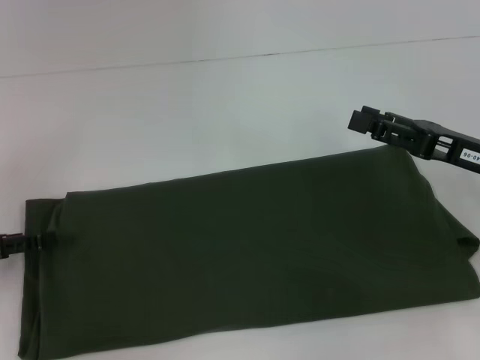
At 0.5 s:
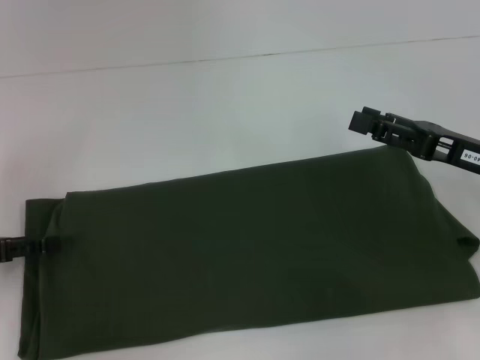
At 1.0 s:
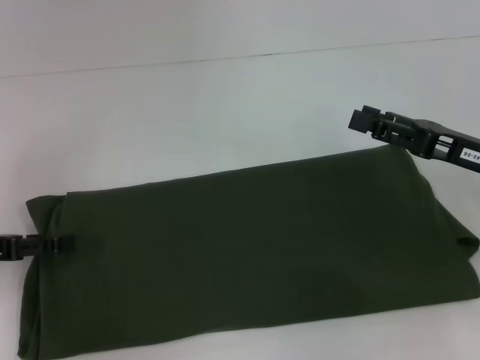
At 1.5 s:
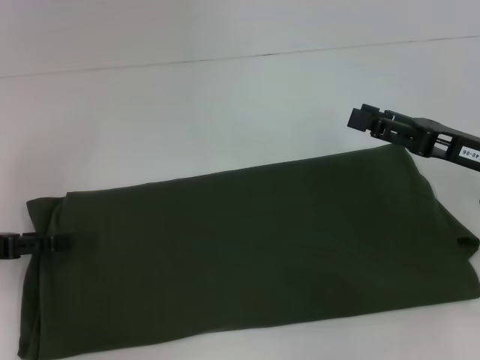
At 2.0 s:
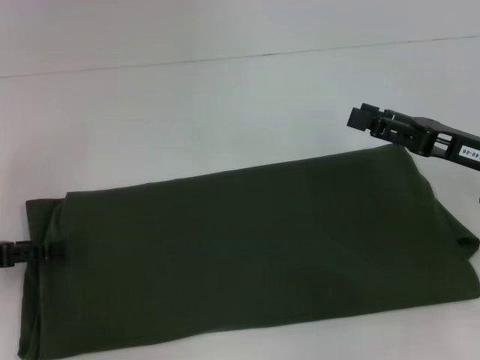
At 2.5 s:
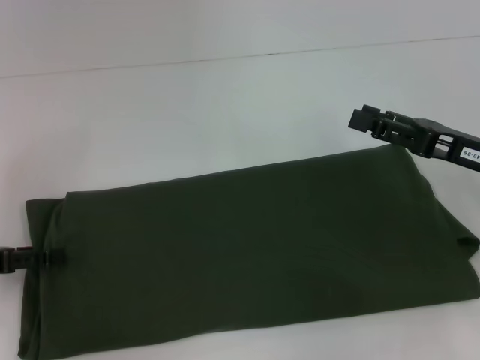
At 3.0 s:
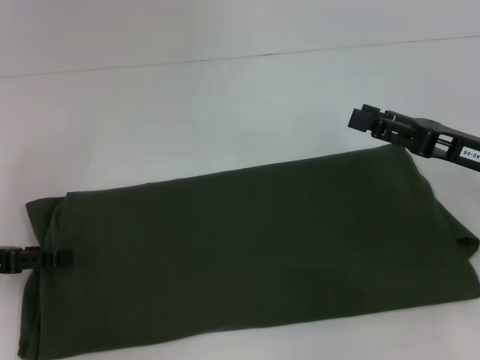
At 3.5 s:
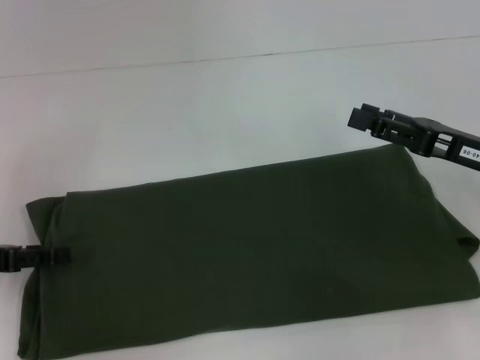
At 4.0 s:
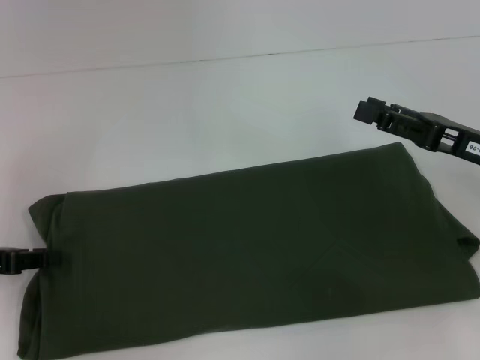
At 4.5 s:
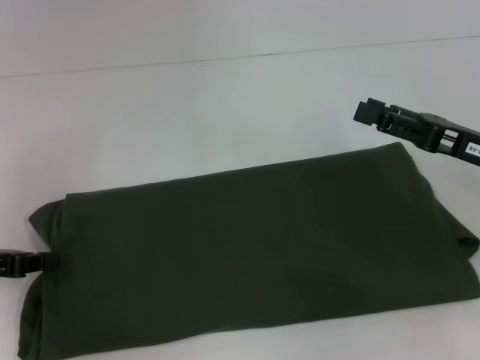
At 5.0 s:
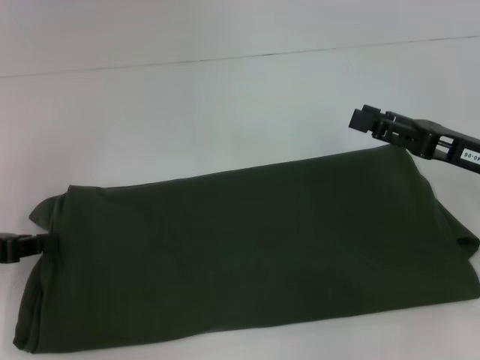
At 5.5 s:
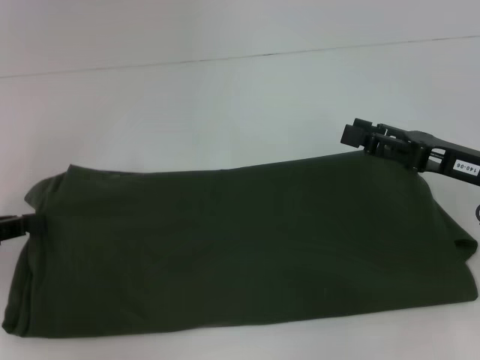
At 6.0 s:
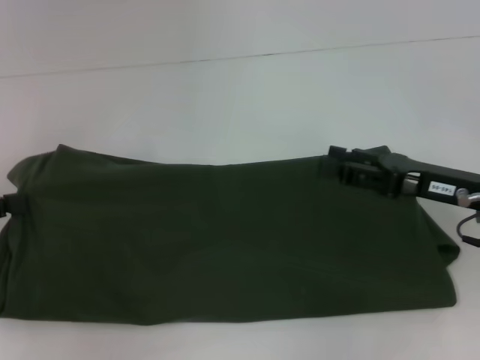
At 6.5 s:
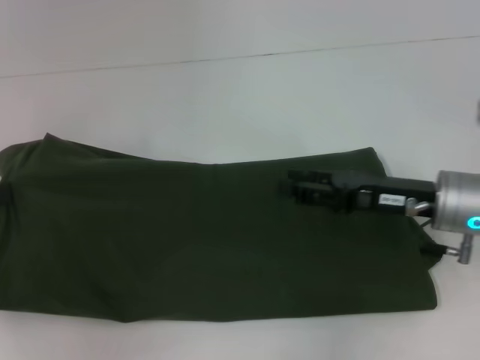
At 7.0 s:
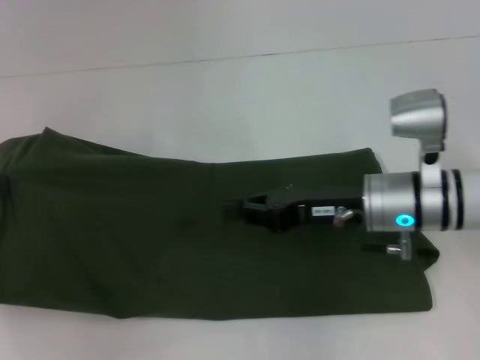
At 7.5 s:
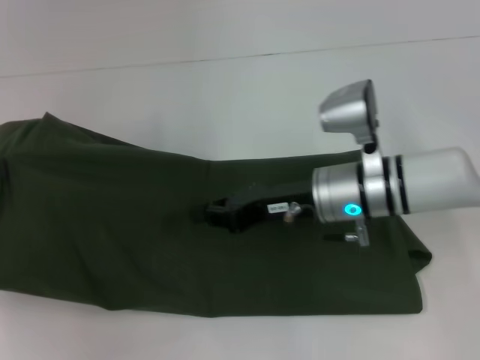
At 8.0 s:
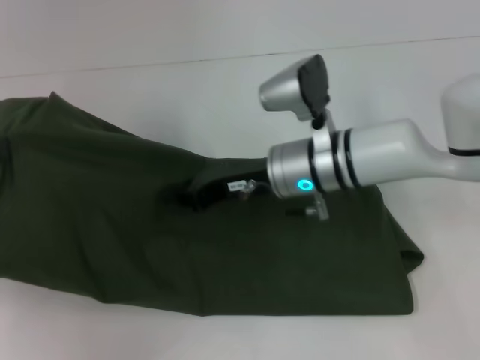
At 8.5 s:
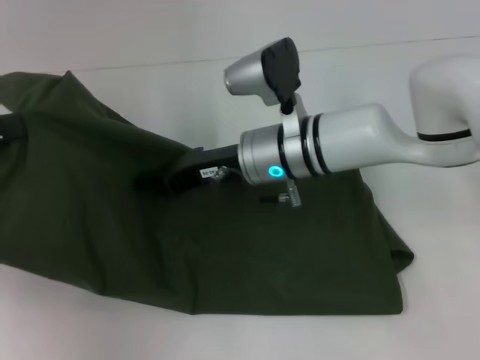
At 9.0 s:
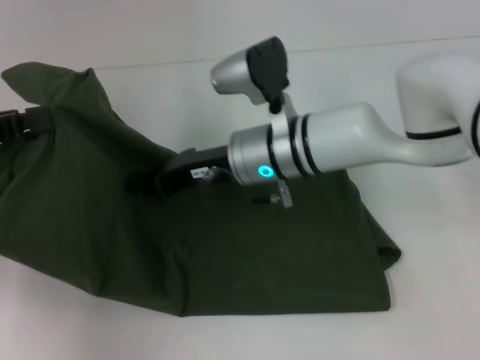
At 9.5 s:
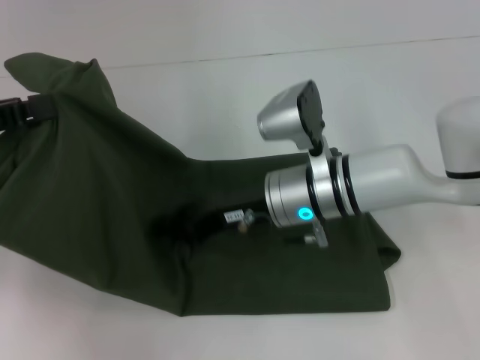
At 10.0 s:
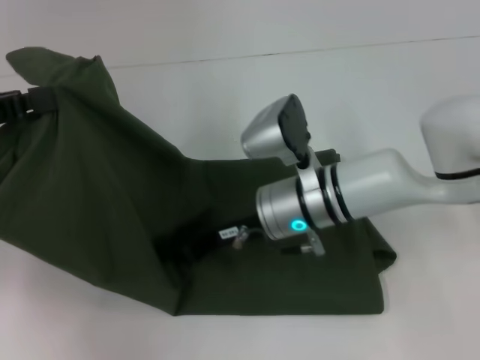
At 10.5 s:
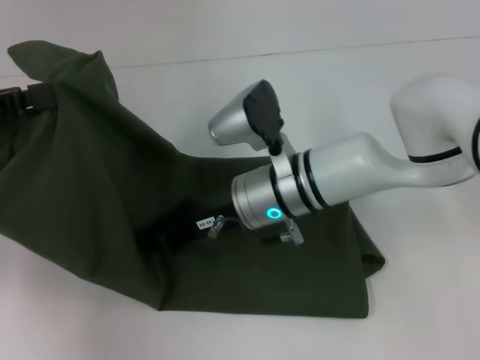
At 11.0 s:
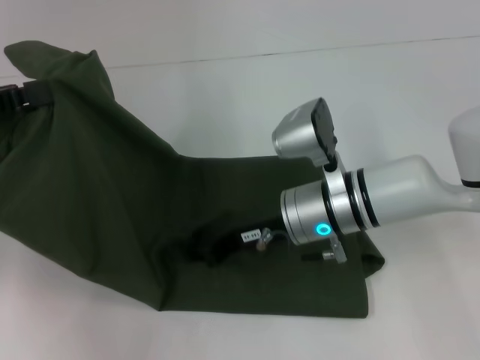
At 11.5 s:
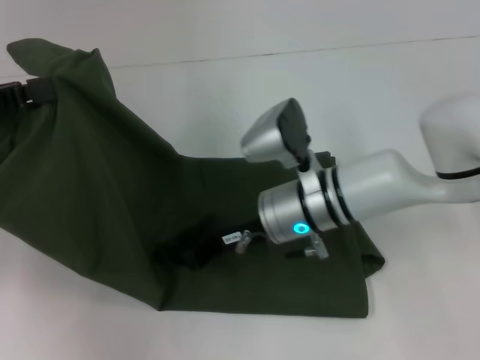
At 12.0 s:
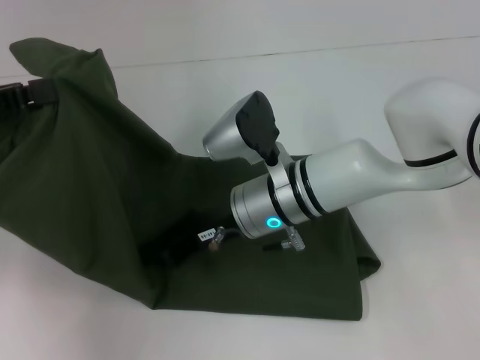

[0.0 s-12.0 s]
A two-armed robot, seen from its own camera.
0.0 to 2.0 s: The grippers make only small movements.
2.0 to 4.0 s: The left gripper closes its fingers.
4.0 to 6.0 s: The left gripper is displaced upward by roughly 5 cm, and closes its fingers.
6.0 to 8.0 s: The right gripper heads to the left and forward, covering approximately 20 cm, and closes its fingers.
10.0 to 12.0 s: The grippers make only small movements.

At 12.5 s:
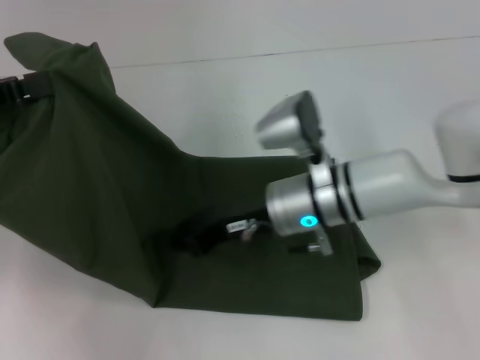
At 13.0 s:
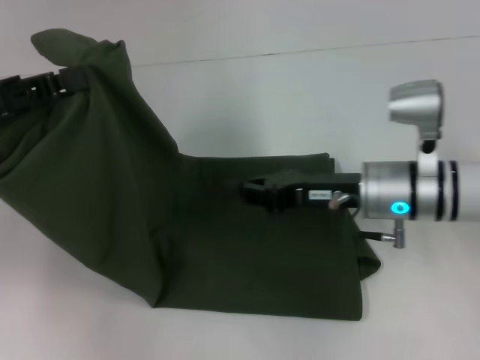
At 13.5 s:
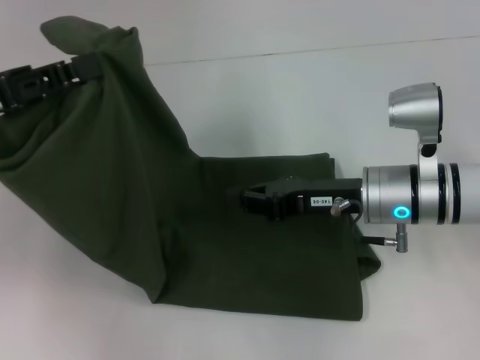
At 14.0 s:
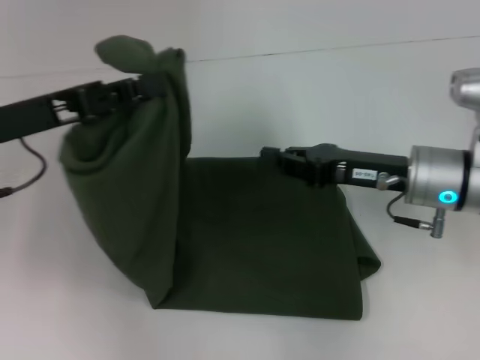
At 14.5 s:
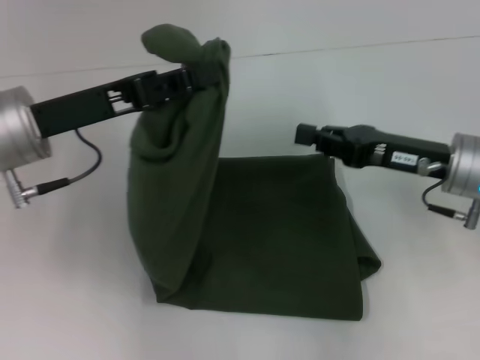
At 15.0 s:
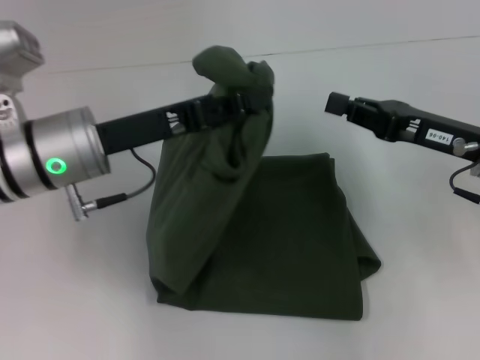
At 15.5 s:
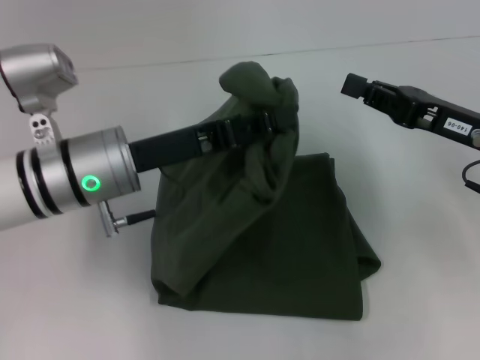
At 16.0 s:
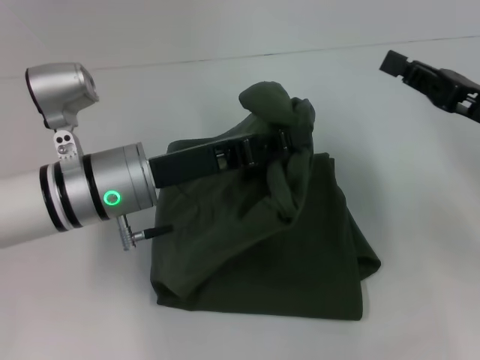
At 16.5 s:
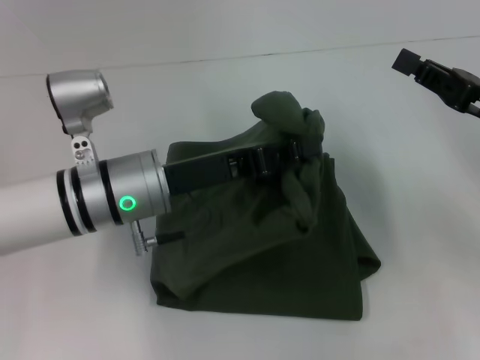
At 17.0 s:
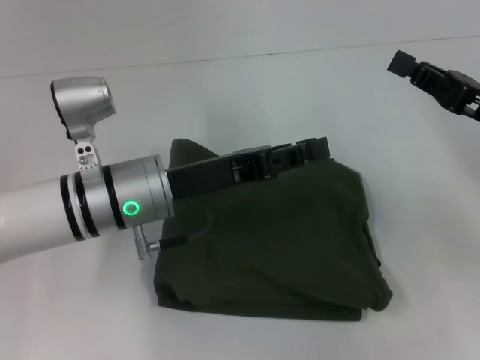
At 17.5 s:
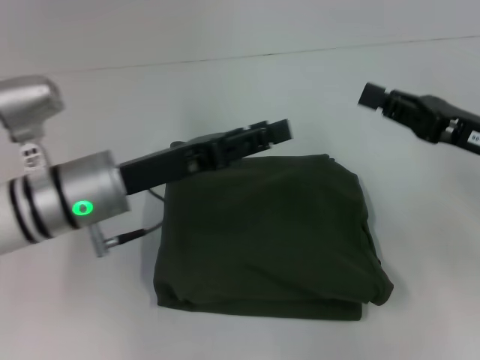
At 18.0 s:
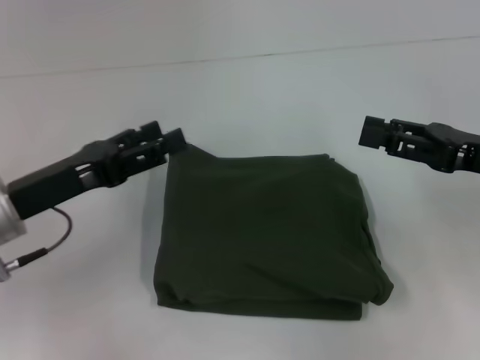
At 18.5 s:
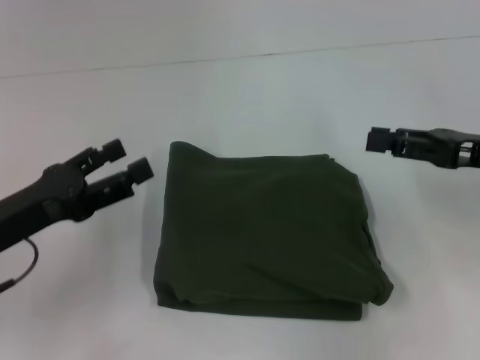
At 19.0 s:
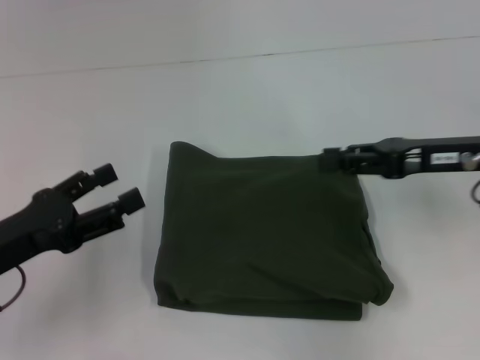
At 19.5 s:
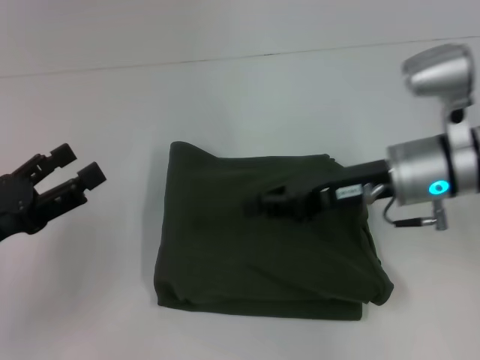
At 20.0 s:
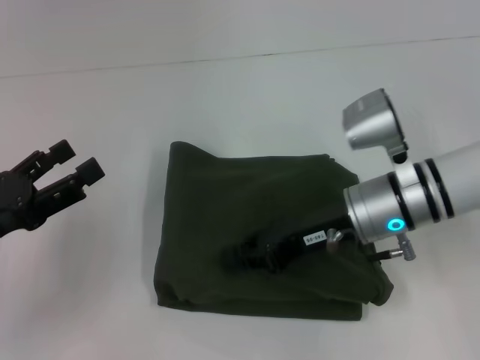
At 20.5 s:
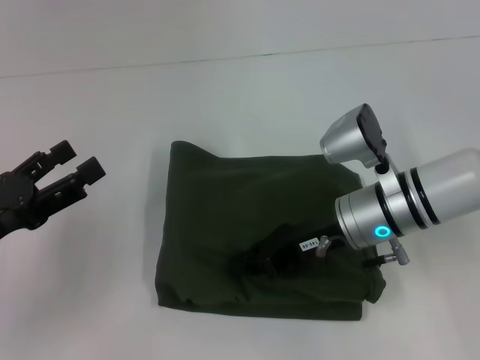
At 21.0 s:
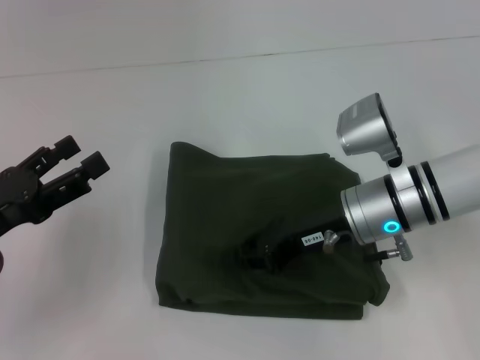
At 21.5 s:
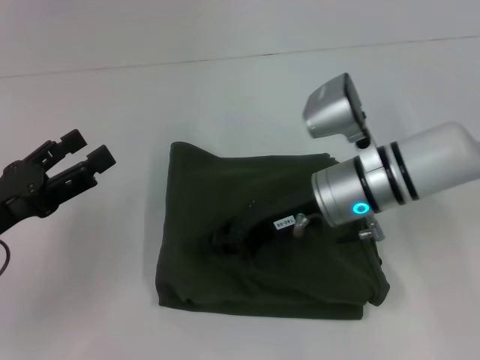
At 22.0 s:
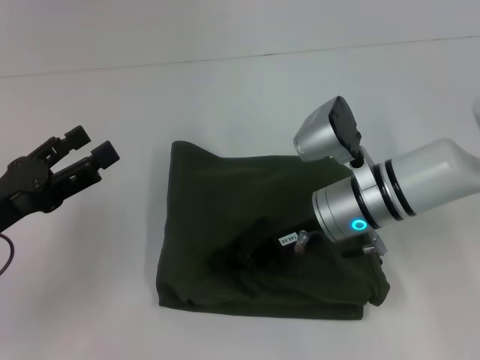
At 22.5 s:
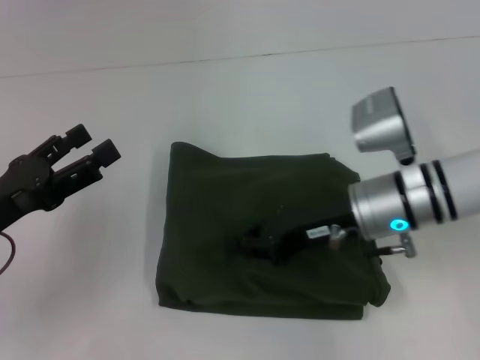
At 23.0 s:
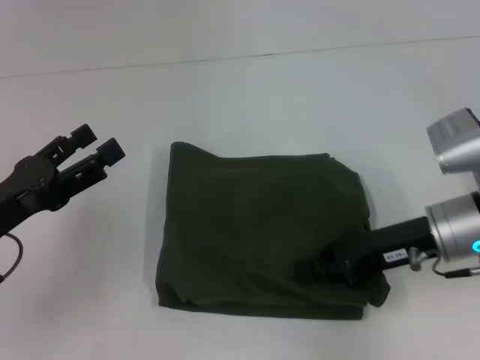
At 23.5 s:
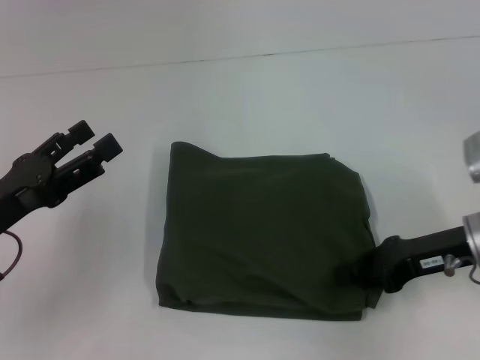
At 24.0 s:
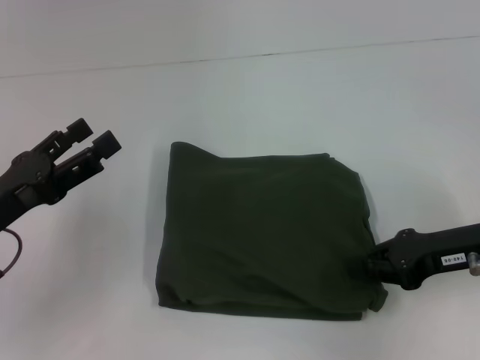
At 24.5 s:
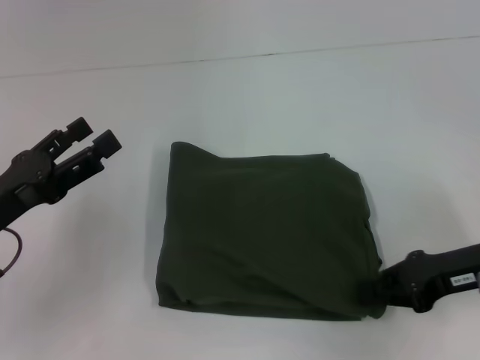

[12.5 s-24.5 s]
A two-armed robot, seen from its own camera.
Step, 12.5 to 16.5 s: Fold the clothes with your left hand.
12.5 to 14.5 s: The two grippers go some 15 cm to the right.
14.5 to 16.5 s: The left gripper goes roughly 10 cm to the right and downward. The right gripper goes roughly 5 cm to the right.
16.5 to 18.5 s: The left gripper travels to the left by some 15 cm, and opens its fingers.
18.5 to 20.5 s: The right gripper heads to the left and downward, covering roughly 15 cm.
20.5 to 22.5 s: The grippers move only a little.
22.5 to 24.5 s: The right gripper goes about 15 cm to the right and backward.

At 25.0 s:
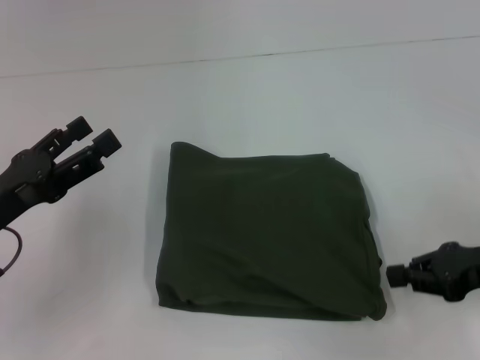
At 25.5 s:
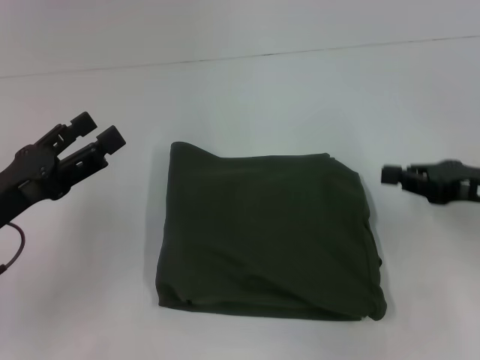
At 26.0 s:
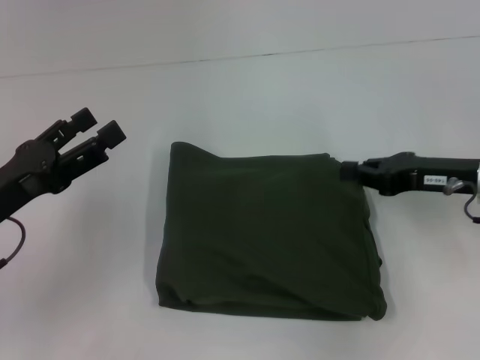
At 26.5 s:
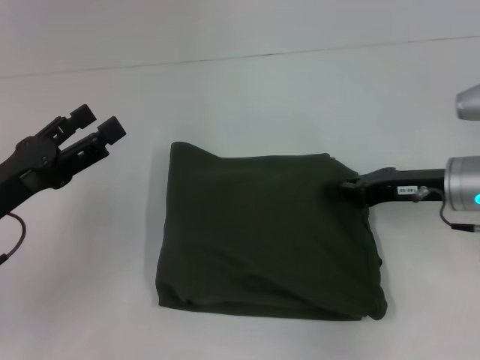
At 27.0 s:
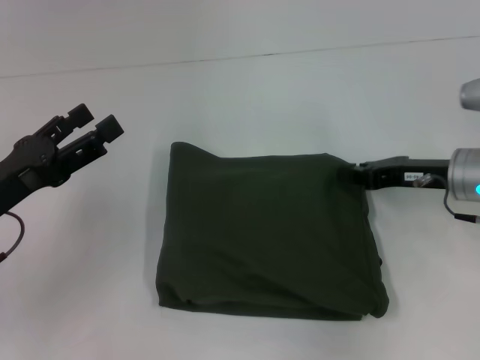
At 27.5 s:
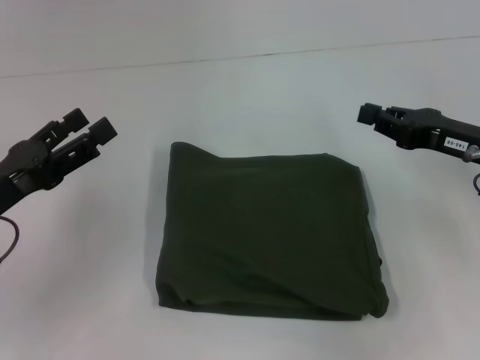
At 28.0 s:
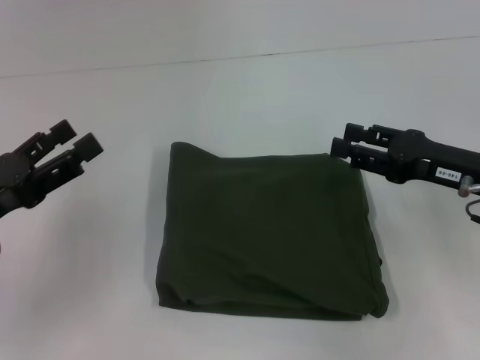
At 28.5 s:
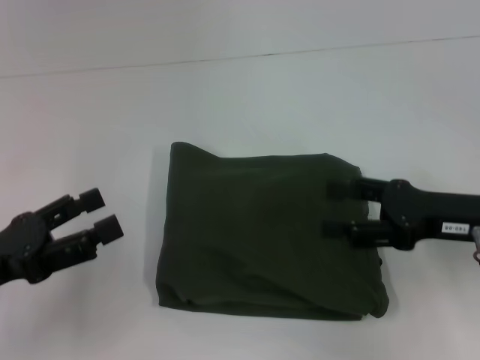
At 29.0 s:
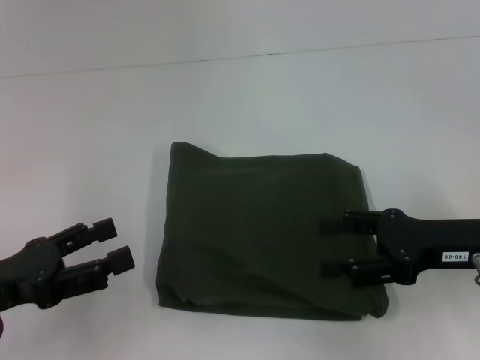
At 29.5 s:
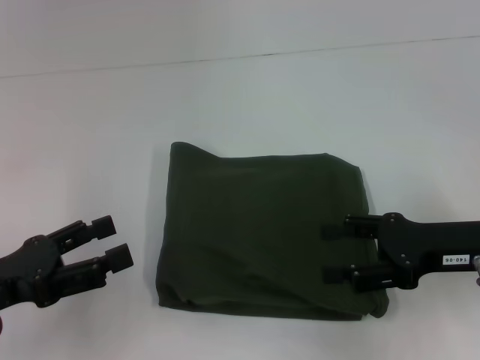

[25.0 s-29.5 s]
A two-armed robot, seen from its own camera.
25.0 to 27.0 s: The right gripper moves forward and to the left, approximately 10 cm.
27.0 to 29.5 s: The right gripper travels backward by approximately 10 cm, and opens. The left gripper goes approximately 5 cm backward.
